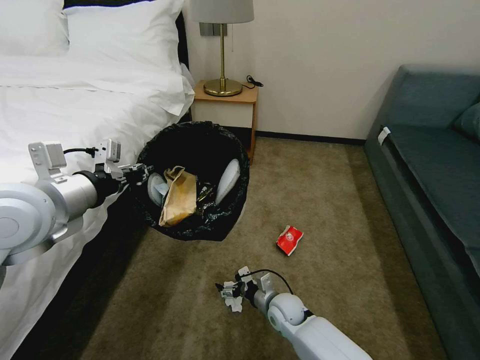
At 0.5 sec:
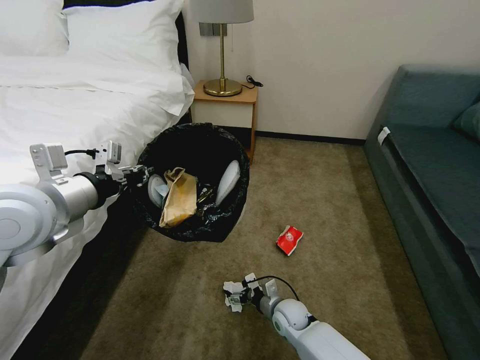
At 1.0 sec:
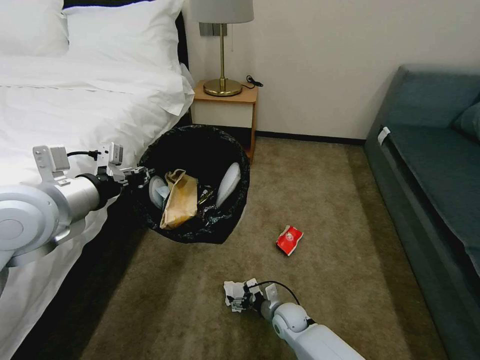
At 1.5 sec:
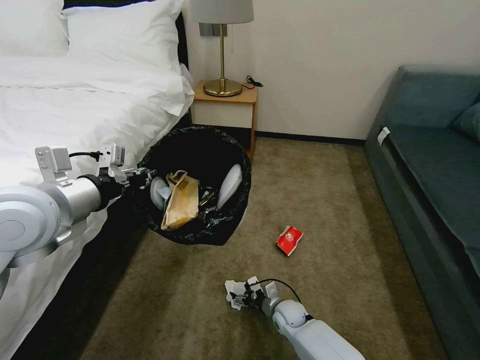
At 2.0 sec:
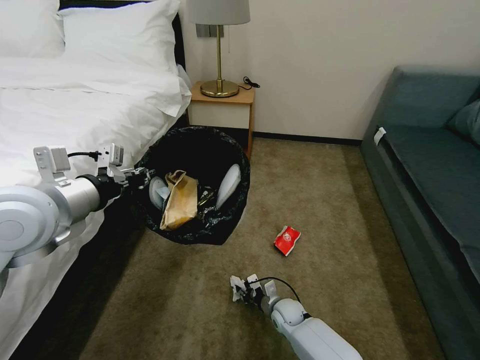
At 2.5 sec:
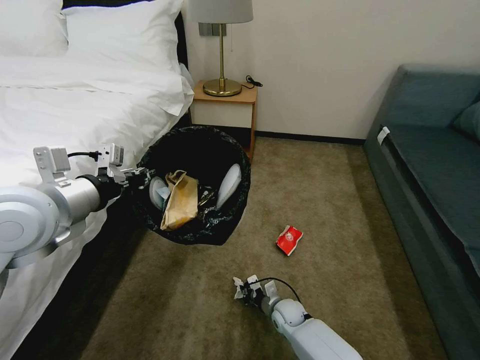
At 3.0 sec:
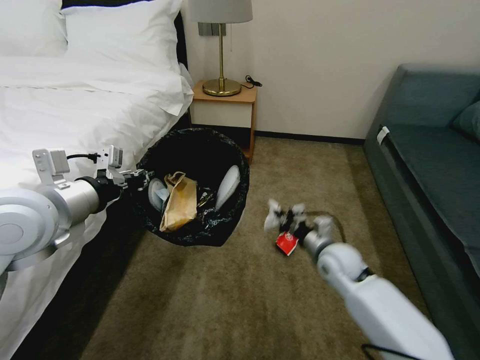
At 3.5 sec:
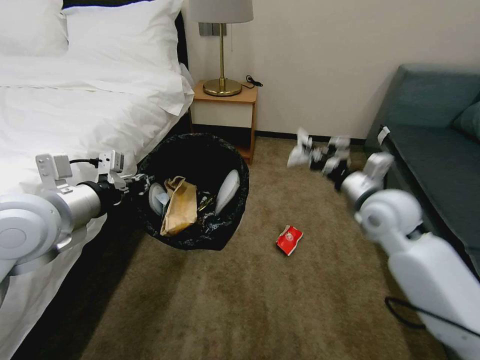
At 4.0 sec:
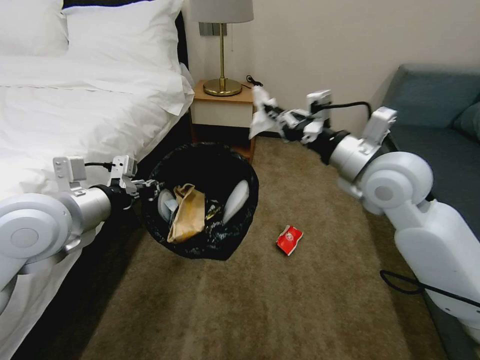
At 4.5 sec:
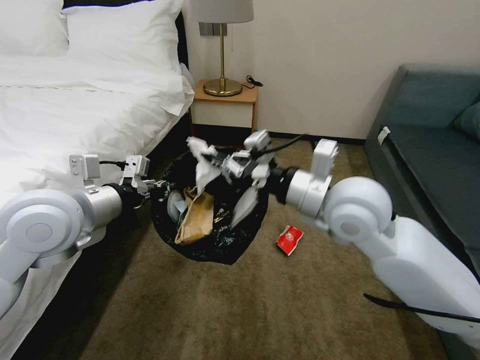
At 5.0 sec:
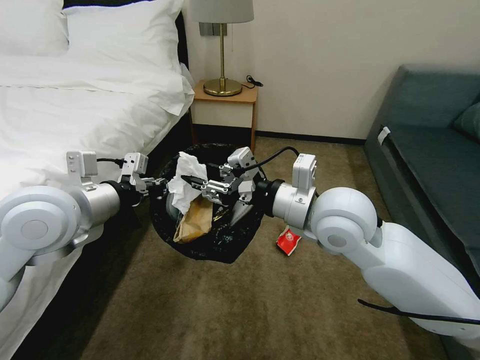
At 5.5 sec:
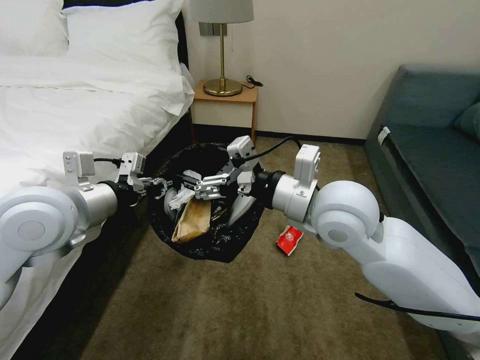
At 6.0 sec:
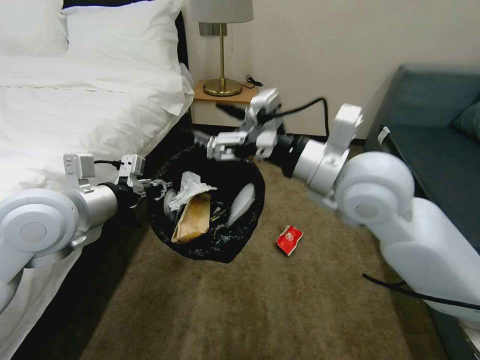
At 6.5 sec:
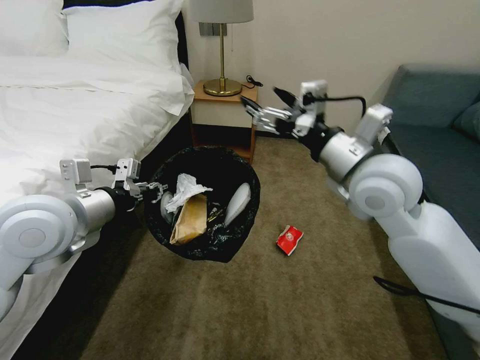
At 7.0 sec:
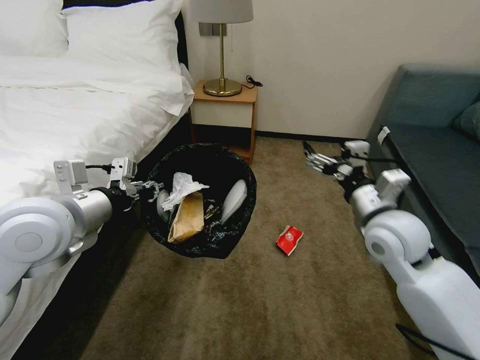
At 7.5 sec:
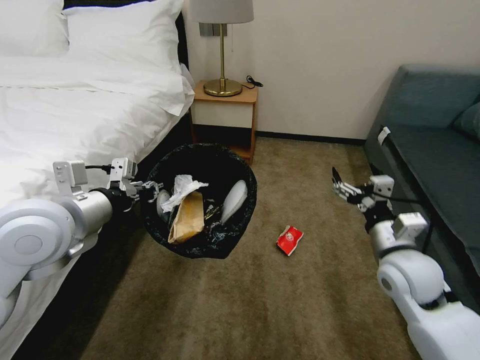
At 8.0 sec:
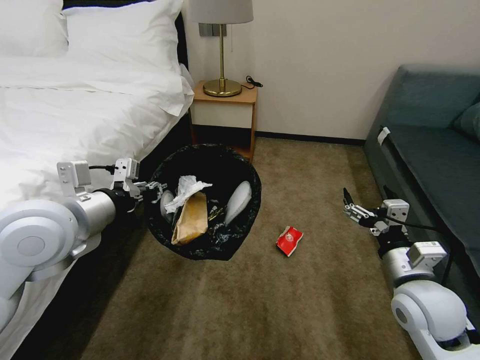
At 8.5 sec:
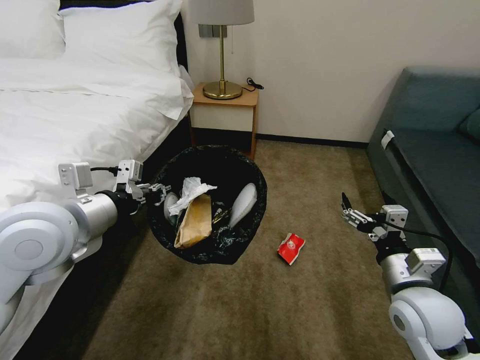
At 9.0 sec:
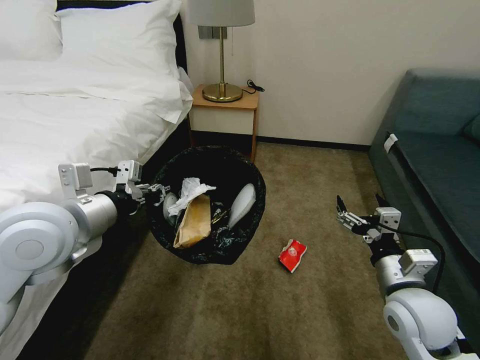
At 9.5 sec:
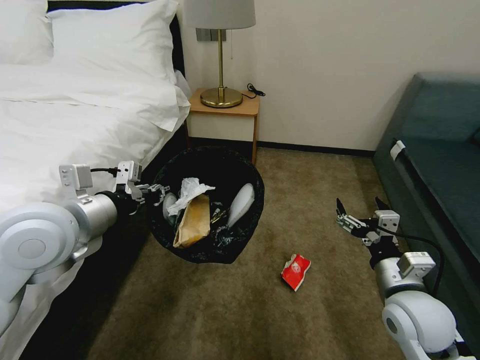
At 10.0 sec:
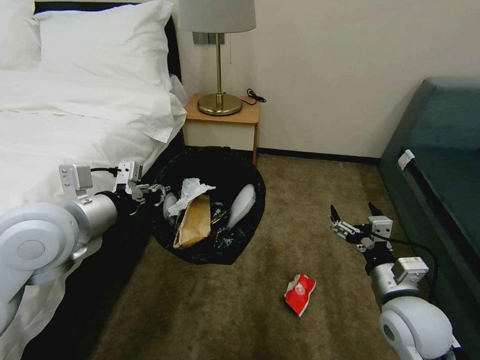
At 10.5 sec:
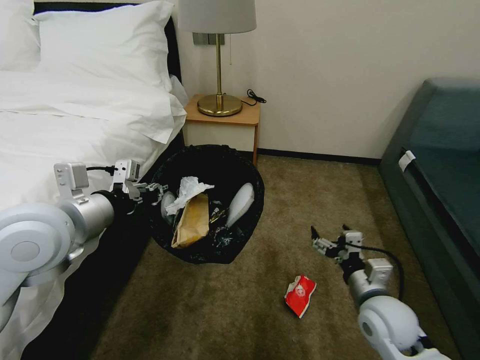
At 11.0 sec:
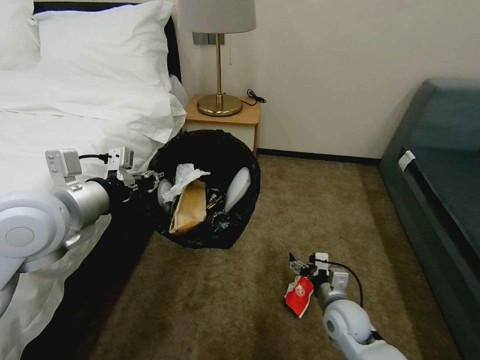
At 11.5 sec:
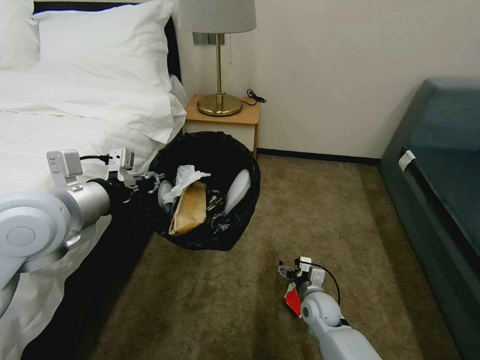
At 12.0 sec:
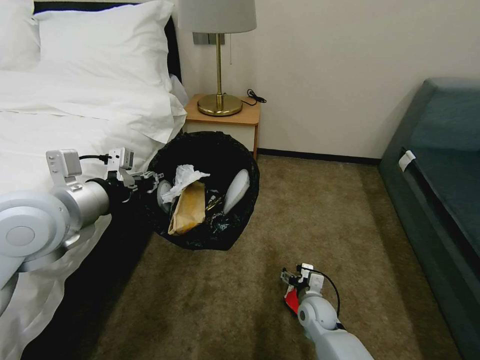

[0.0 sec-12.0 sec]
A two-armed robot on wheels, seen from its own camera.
Task of the whole recording: Pick up the trash bin, then pick up the garbage on the floor and place it into the trash bin.
0.0 sec to 2.0 sec: The right gripper moves downward, some 5 cm, and closes.
2.0 sec to 4.0 sec: The right gripper travels upward by about 50 cm.
4.0 sec to 6.0 sec: The right gripper goes roughly 5 cm to the left, and opens its fingers.
6.0 sec to 8.0 sec: The right gripper shifts about 25 cm downward, to the right and backward.
10.0 sec to 12.0 sec: The right gripper moves downward, about 25 cm.

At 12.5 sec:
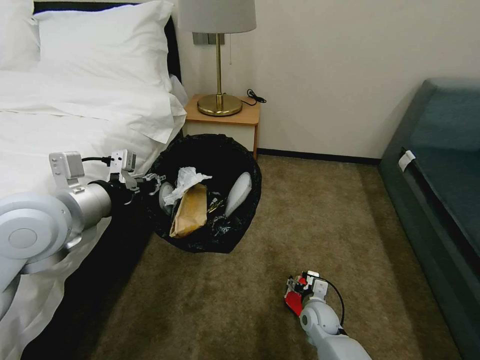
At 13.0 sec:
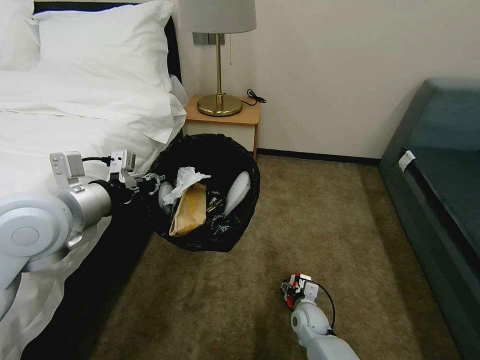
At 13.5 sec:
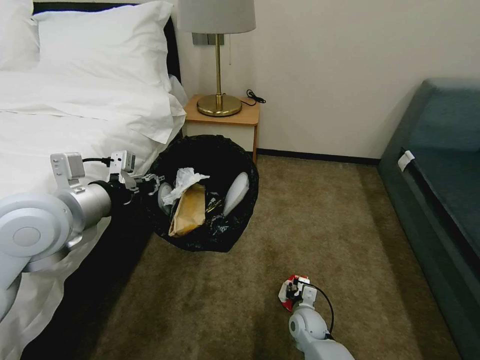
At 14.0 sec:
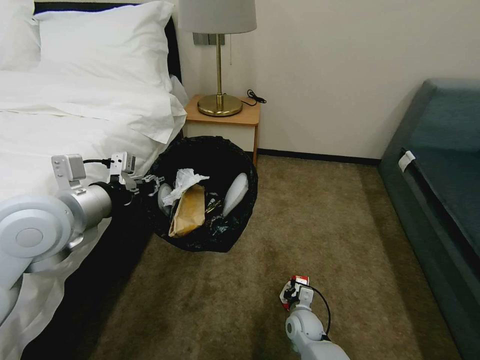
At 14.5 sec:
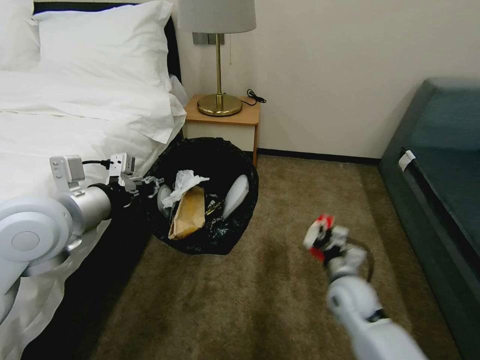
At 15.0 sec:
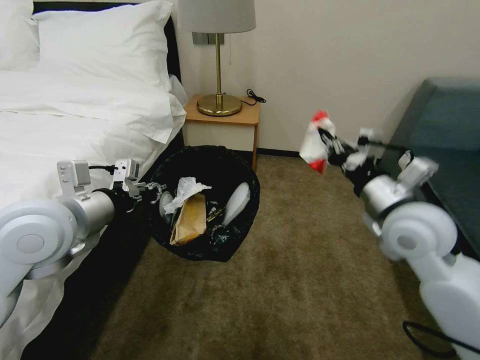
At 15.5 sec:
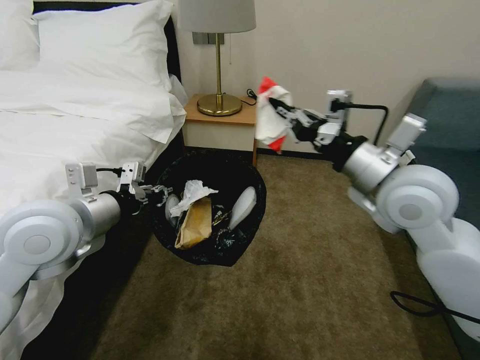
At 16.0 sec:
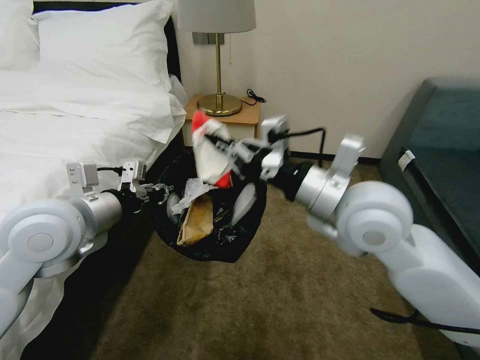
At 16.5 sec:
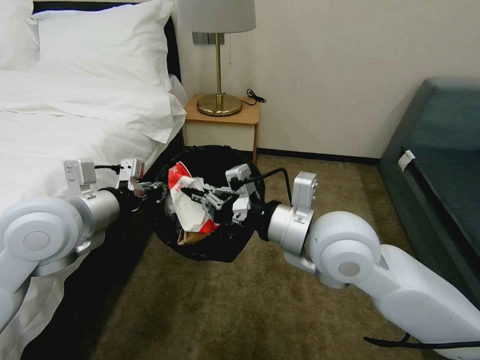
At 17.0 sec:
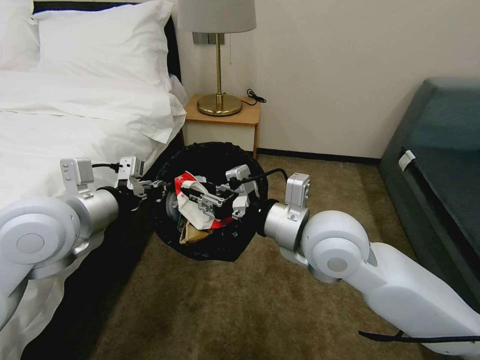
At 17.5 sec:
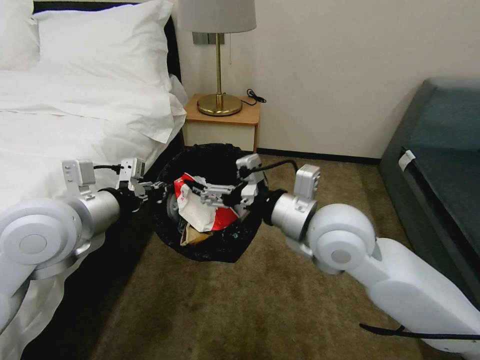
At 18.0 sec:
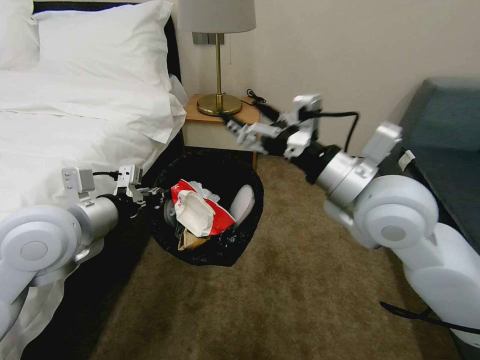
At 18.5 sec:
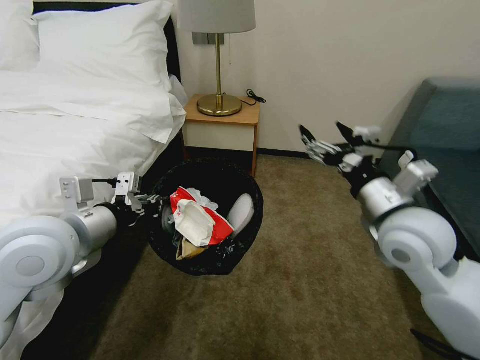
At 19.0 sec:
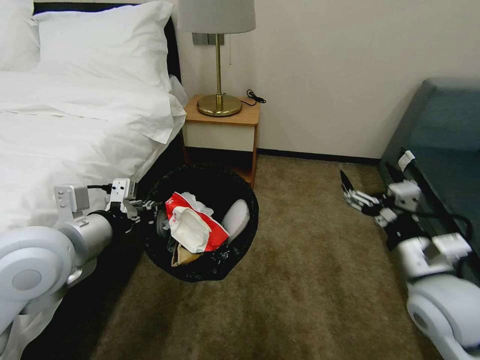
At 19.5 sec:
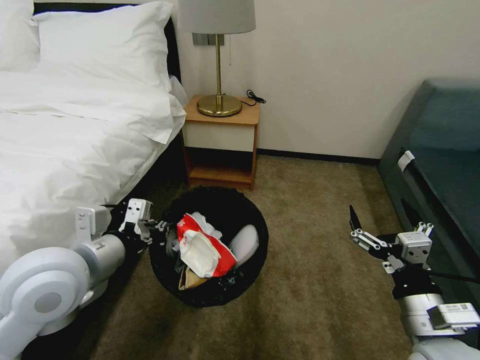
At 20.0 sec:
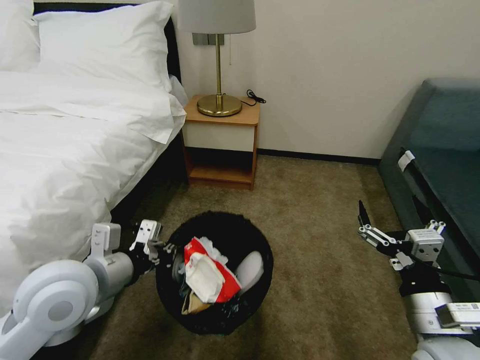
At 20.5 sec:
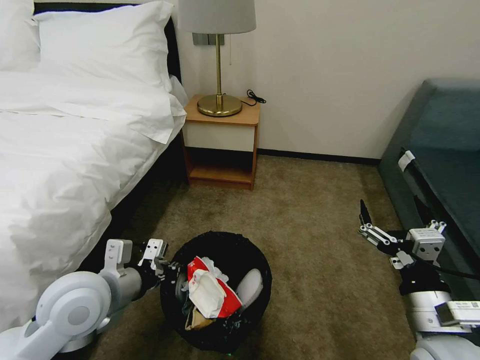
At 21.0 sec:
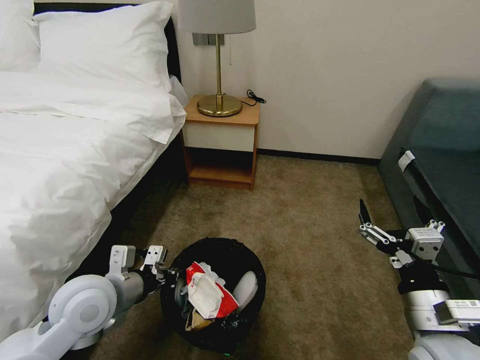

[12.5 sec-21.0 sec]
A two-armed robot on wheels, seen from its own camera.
Task of the whole recording: Pick up the trash bin, then pick up the garbage on the floor and place it into the trash bin.
12.5 sec to 14.5 sec: The right gripper heads upward, covering about 10 cm, and closes its fingers.
14.5 sec to 16.5 sec: The right gripper is displaced upward by approximately 30 cm.
16.5 sec to 19.0 sec: The right gripper is displaced to the right and downward by about 20 cm, and opens its fingers.
19.0 sec to 21.0 sec: The left gripper goes about 15 cm downward. The right gripper moves backward and downward, roughly 10 cm.

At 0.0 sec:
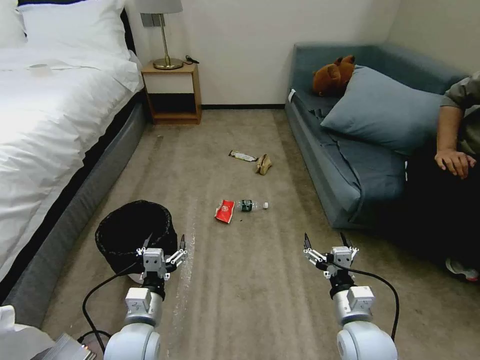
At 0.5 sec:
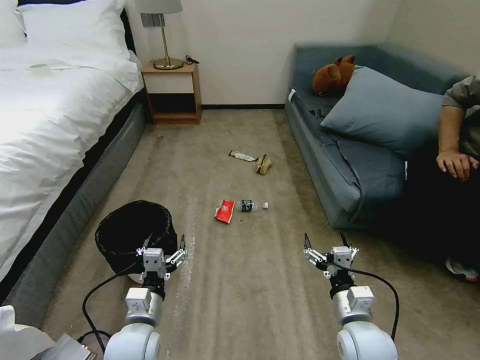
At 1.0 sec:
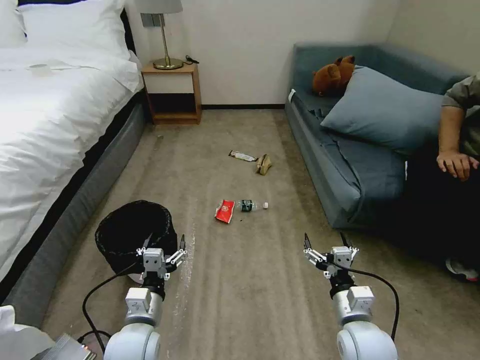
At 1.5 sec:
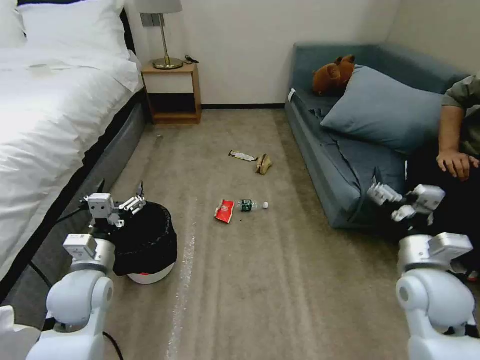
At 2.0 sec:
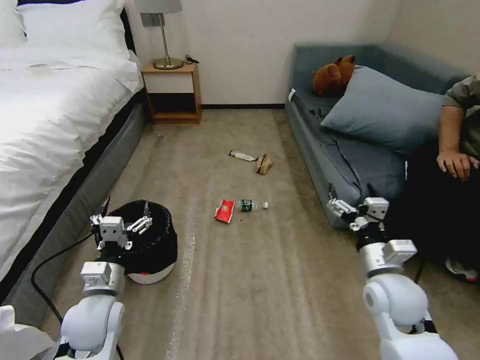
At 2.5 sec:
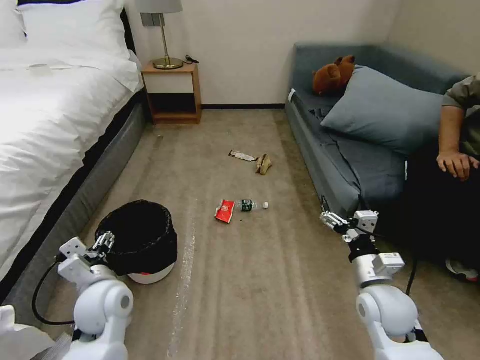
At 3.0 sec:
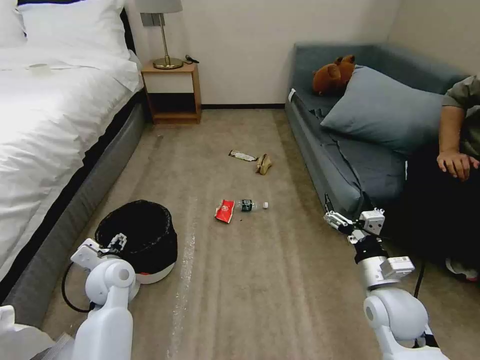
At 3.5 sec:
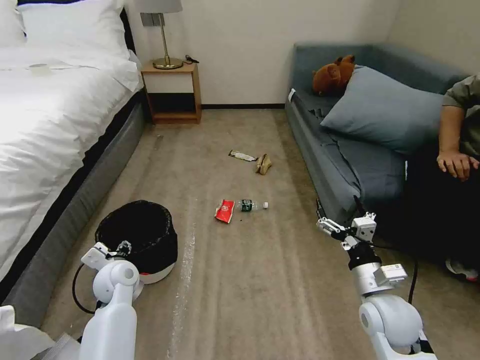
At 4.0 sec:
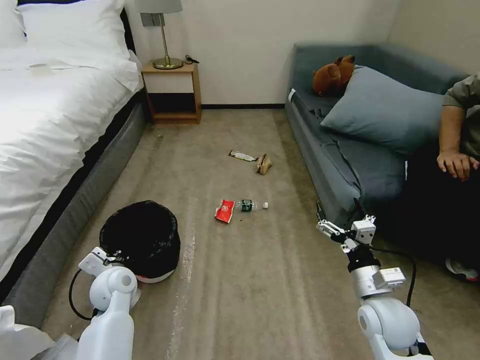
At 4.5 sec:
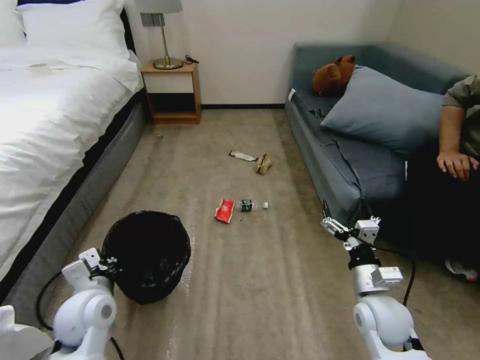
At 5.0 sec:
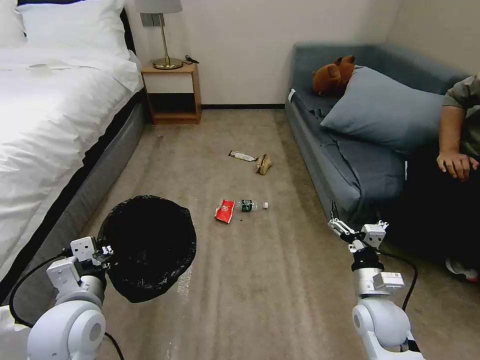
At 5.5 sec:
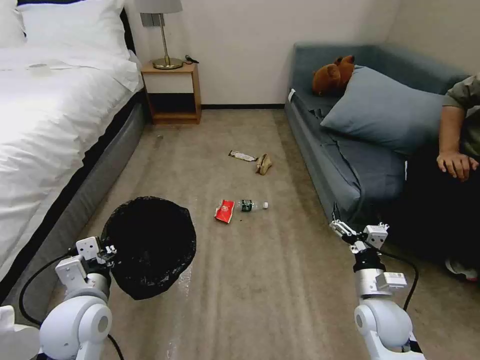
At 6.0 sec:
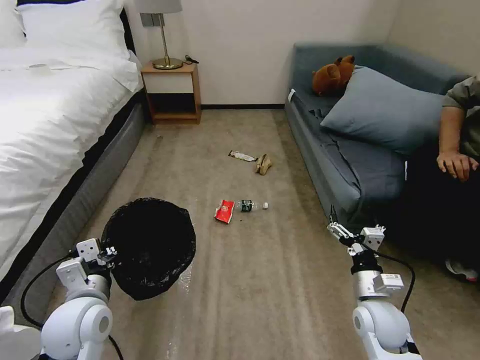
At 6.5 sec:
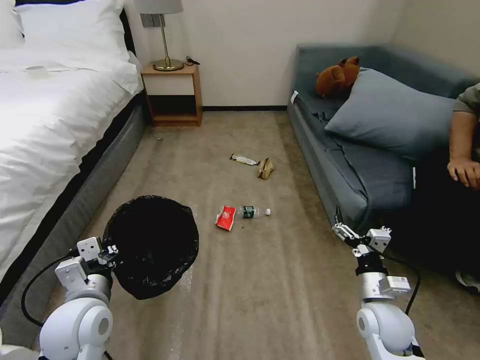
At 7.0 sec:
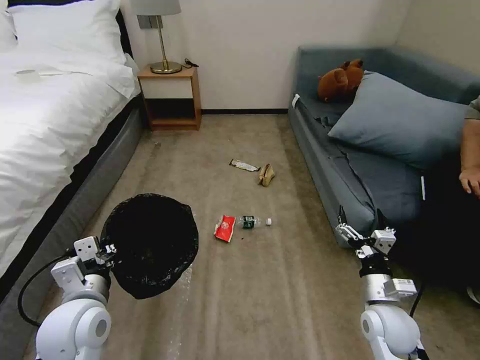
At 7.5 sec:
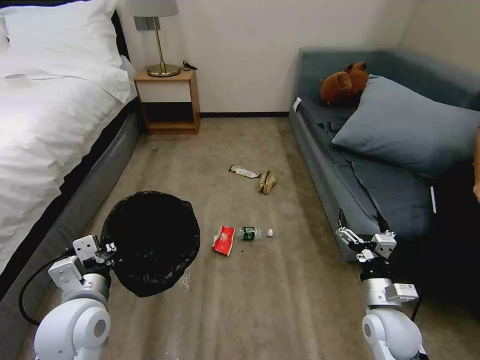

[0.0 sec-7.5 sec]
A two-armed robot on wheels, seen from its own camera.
Task of the whole recording: Pick up the trash bin, then pick up the garbage on the floor and place it into the trash bin.
2.0 sec to 4.0 sec: The right gripper ends up approximately 5 cm from where it was. Meanwhile the left gripper is displaced forward by about 10 cm, and closes its fingers.
4.0 sec to 5.5 sec: The left gripper heads backward and upward, covering some 15 cm.
